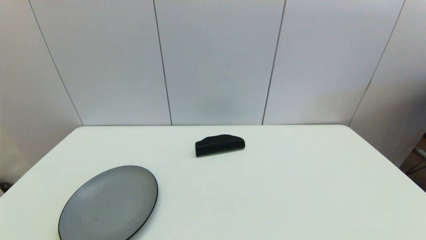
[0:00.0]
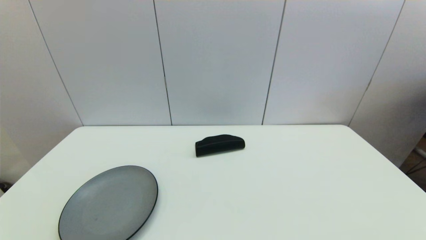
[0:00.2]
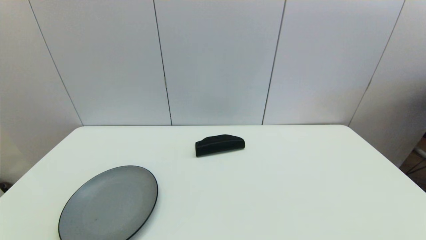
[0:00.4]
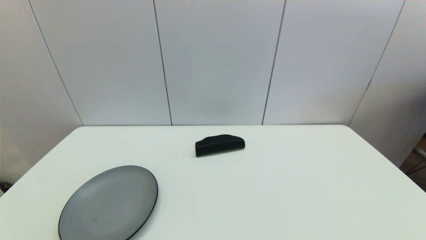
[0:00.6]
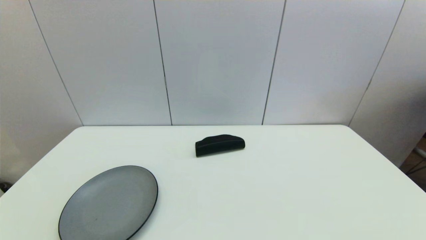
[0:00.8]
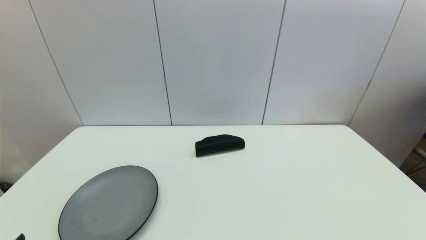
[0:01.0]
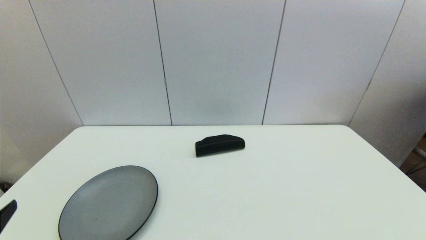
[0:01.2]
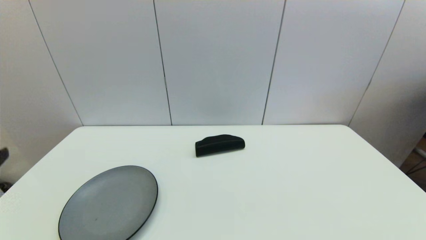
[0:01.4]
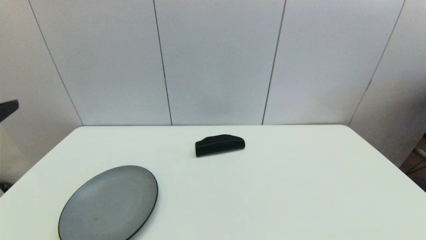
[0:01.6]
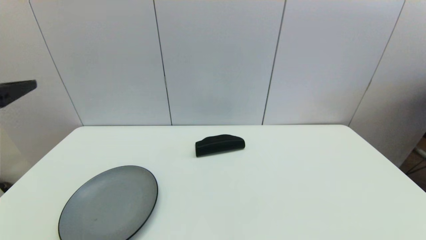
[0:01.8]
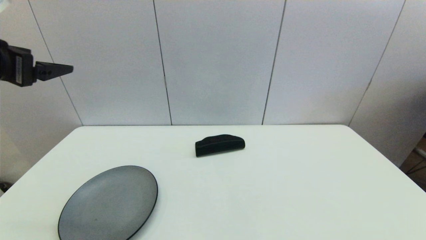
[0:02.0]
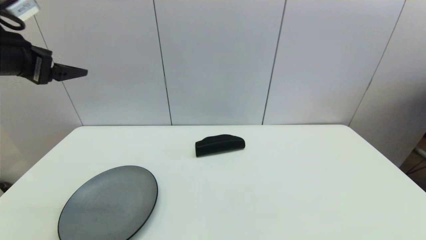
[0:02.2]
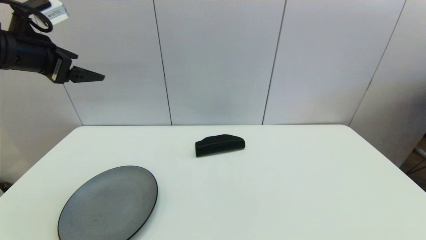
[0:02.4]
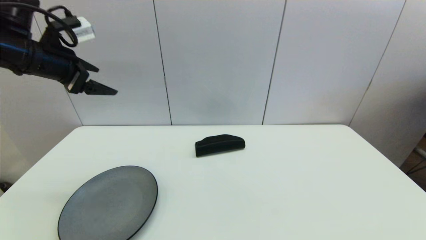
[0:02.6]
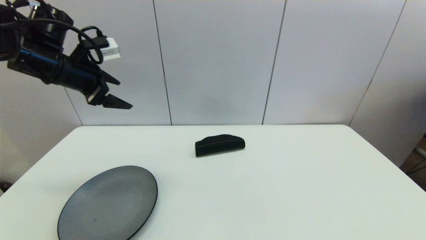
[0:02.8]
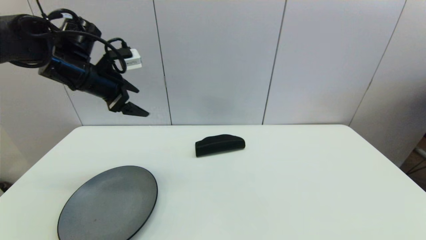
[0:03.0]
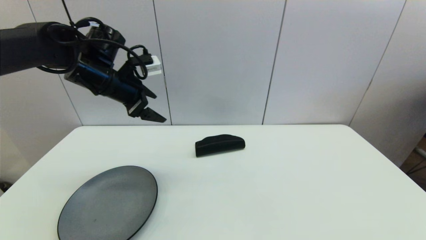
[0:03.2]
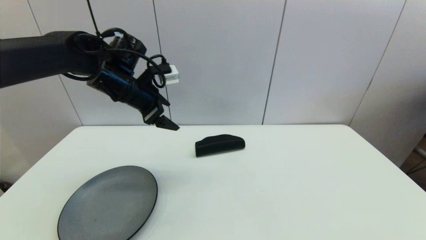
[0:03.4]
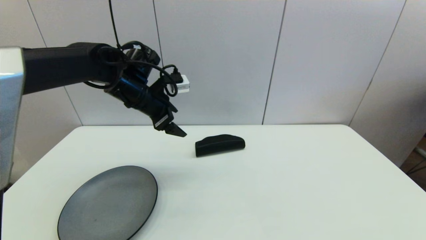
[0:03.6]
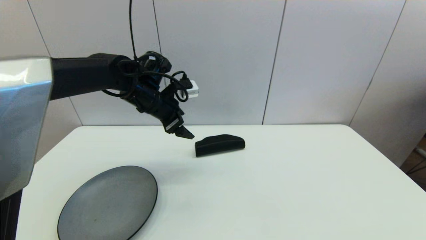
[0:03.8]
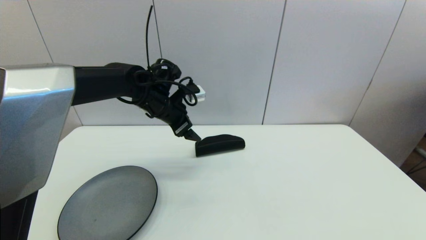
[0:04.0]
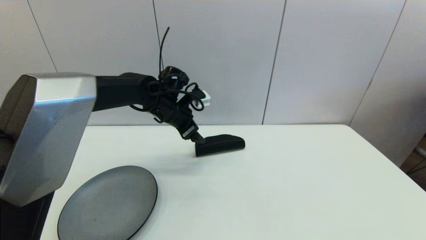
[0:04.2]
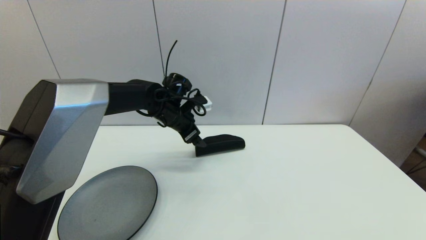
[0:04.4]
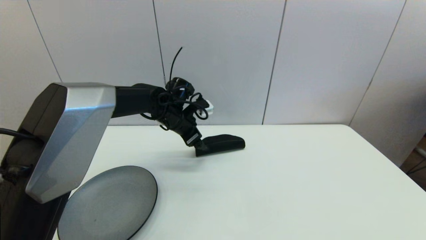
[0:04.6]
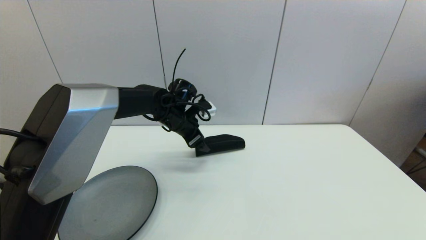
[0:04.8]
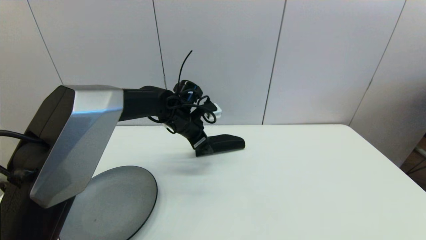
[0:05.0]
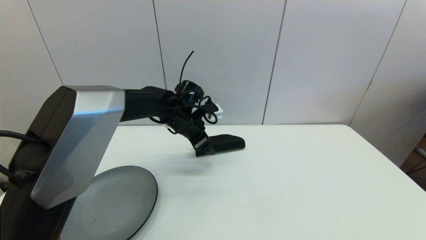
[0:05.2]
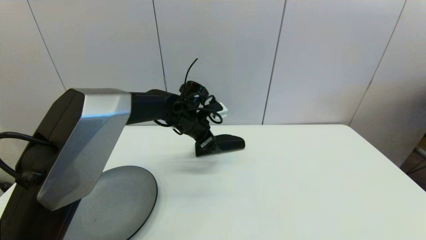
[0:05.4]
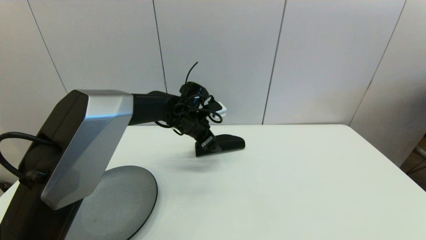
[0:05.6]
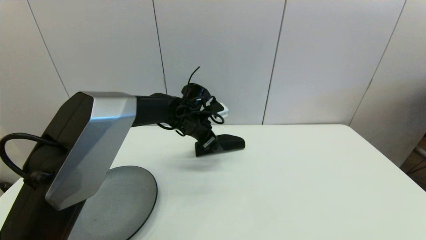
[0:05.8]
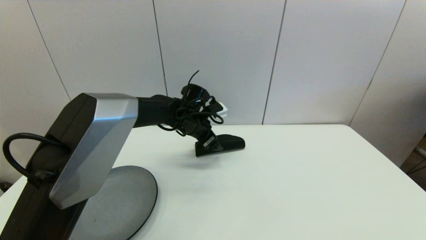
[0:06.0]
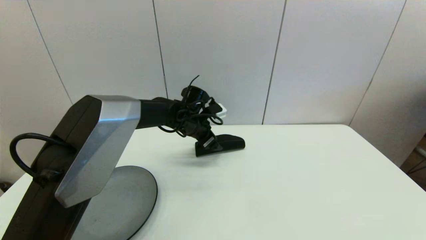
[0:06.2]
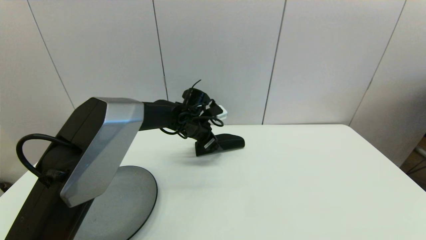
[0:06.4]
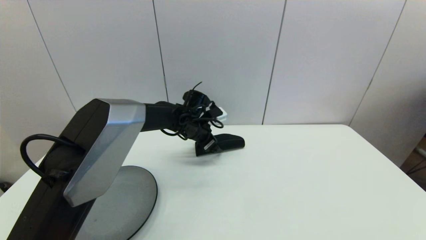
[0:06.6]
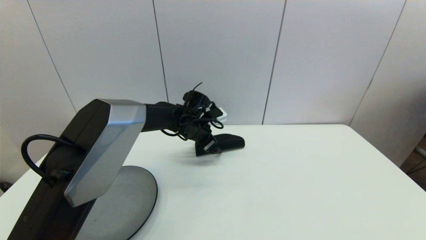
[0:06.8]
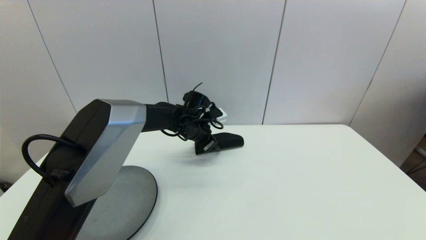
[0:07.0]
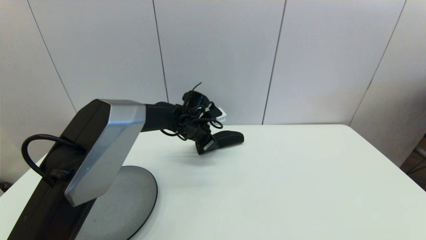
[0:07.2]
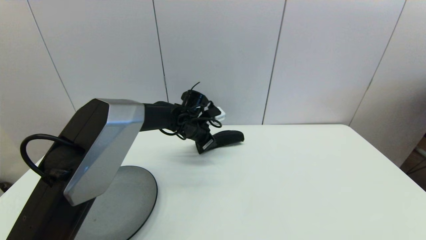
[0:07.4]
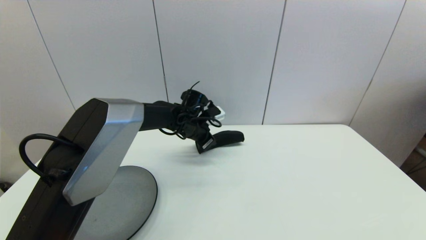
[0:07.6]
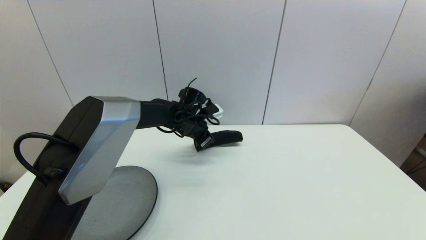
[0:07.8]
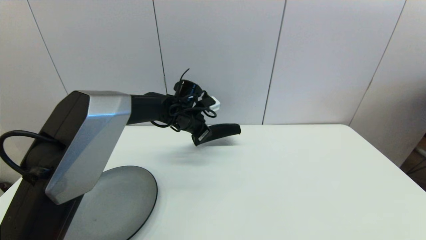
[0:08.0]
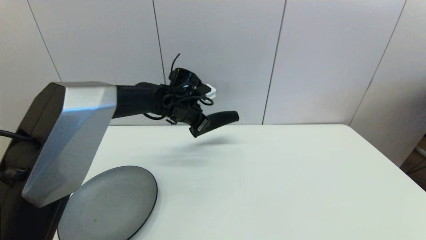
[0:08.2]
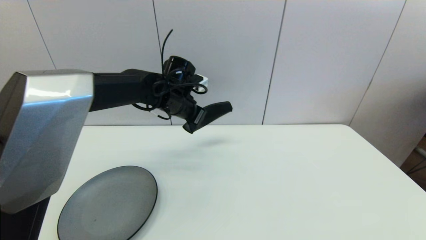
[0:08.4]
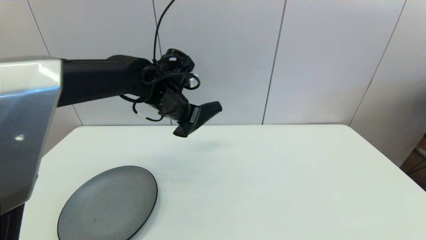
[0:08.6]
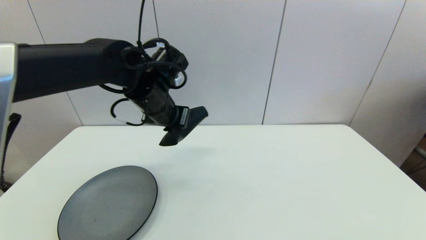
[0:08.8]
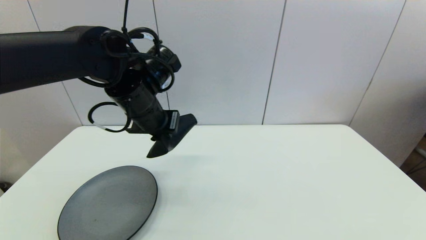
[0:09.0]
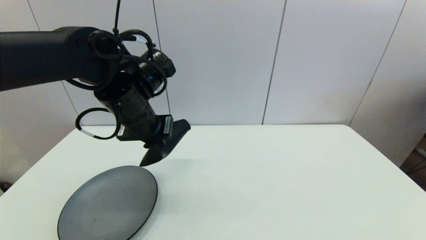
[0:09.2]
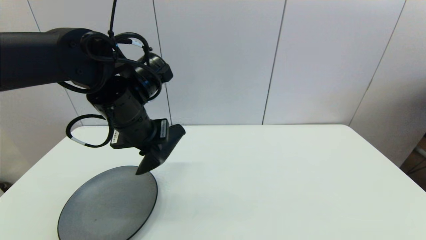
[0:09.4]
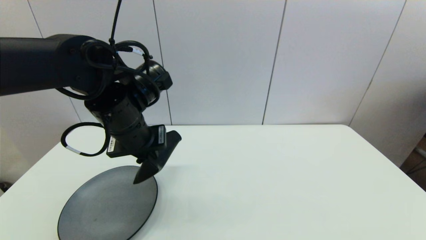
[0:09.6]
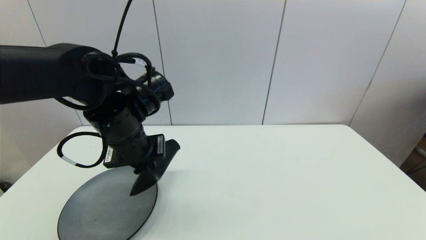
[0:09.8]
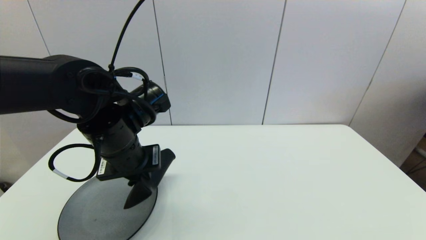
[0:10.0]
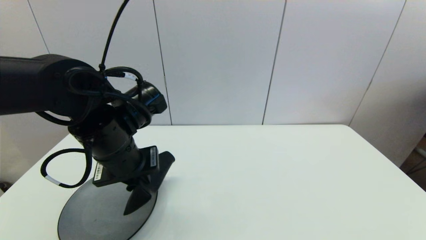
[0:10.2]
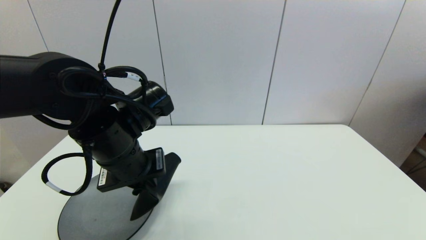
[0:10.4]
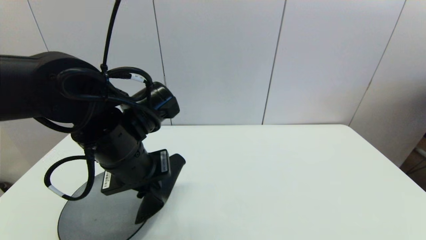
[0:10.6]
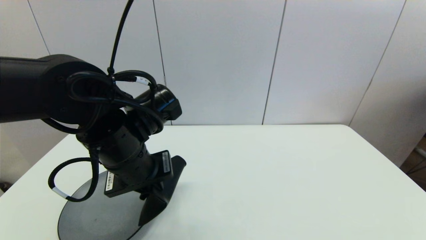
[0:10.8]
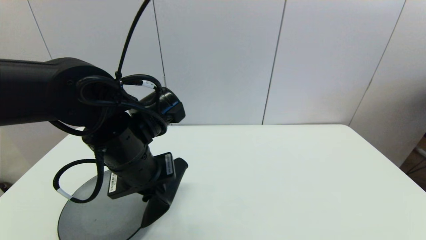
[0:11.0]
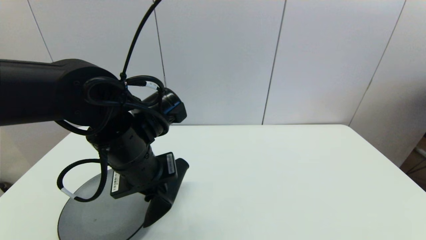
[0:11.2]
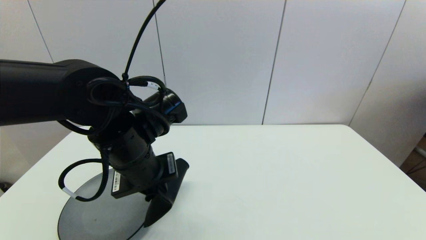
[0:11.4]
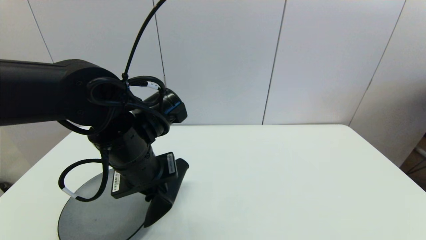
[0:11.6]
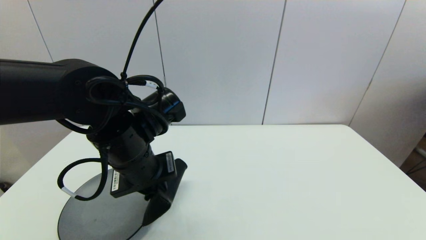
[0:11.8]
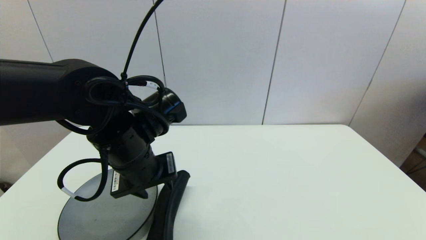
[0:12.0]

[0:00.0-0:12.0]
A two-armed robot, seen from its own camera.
Step, 0:01.0 to 0:07.8: Grasp the glasses case with left gripper.
0:01.6 to 0:03.0: The left gripper travels forward by approximately 25 cm.
0:03.0 to 0:04.4: The left gripper goes roughly 20 cm to the right and downward.
0:04.4 to 0:06.0: The left gripper ends up roughly 5 cm from where it was.
0:06.0 to 0:07.6: The left gripper closes.
0:07.6 to 0:09.0: The left gripper travels upward, backward and to the left by roughly 20 cm.
0:09.0 to 0:10.4: The left gripper travels backward by about 10 cm.
0:10.4 to 0:12.0: The left gripper opens.

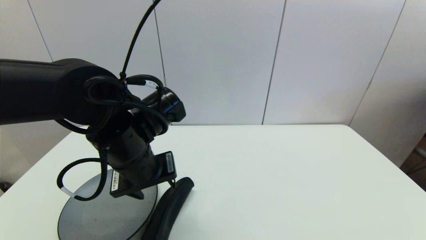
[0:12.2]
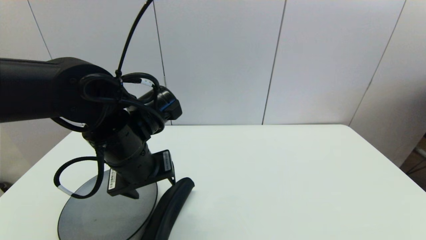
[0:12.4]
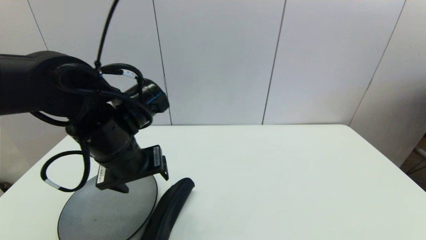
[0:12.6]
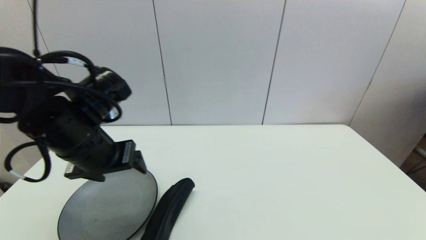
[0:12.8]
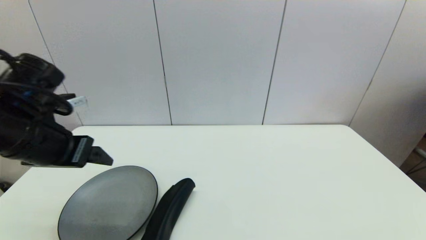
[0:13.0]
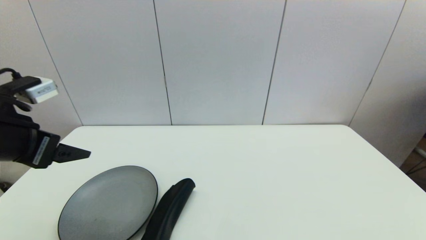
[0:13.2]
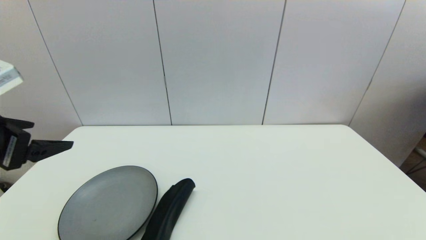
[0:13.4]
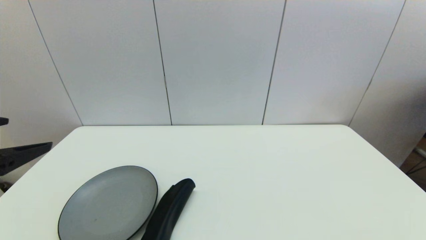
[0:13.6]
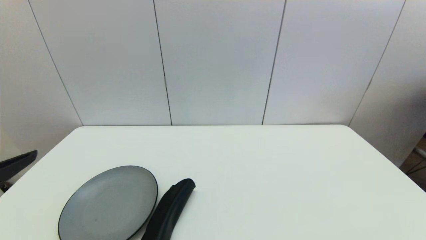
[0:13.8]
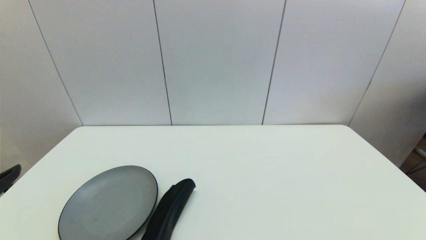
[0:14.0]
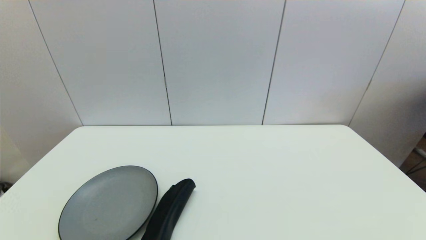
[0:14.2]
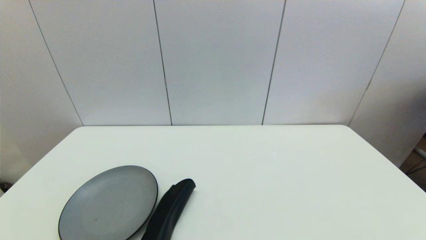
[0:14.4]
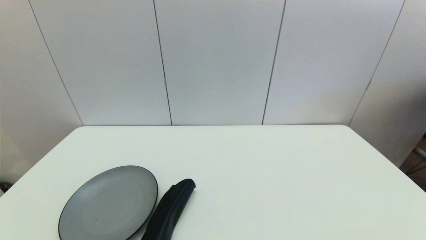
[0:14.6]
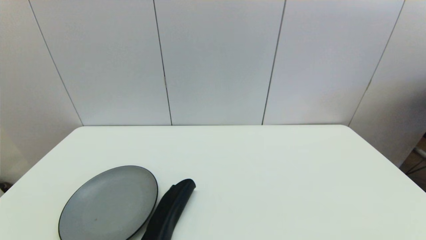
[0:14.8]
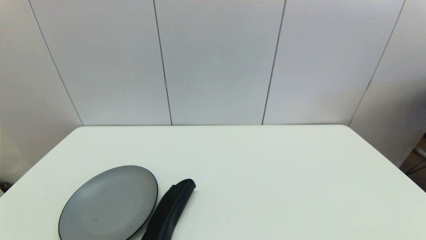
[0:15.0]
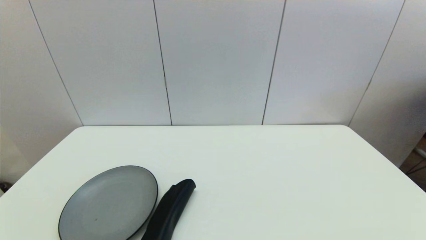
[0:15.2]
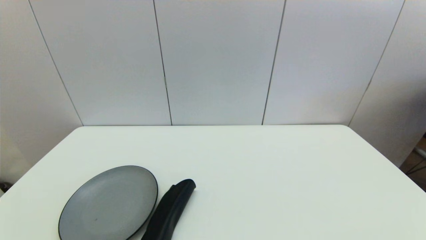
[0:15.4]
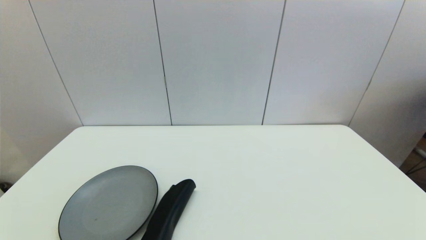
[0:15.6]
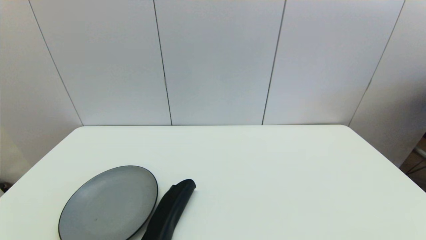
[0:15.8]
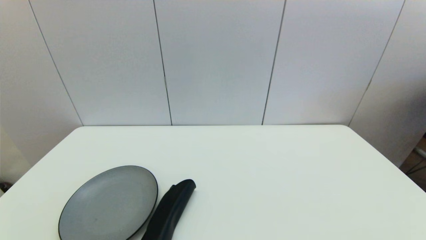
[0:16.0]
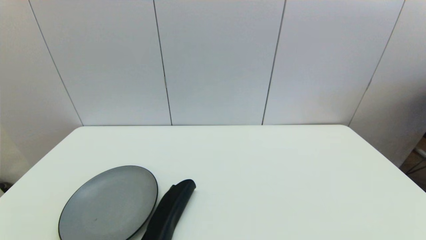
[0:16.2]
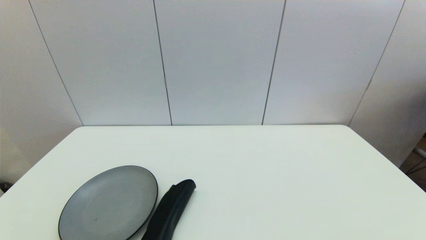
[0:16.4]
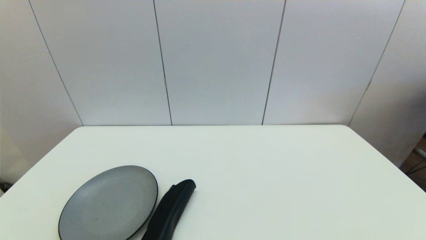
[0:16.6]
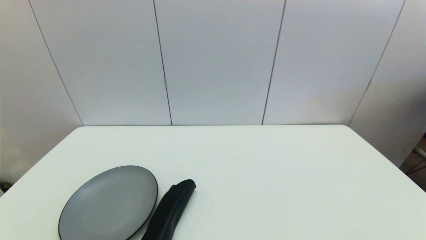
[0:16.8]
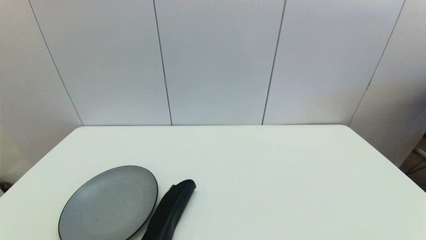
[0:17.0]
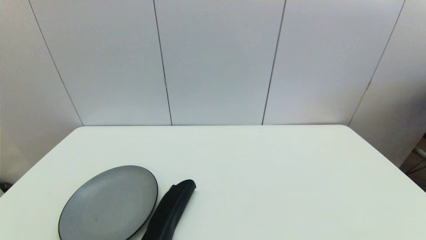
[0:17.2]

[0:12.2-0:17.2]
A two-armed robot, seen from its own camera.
0:12.2 to 0:13.8: The left gripper shifts approximately 25 cm to the left and backward, and opens its fingers.
0:13.8 to 0:15.6: The left gripper shifts roughly 20 cm downward and backward.
0:15.6 to 0:17.2: The two grippers keep their place.
